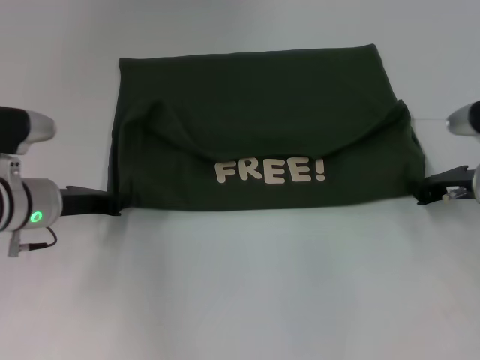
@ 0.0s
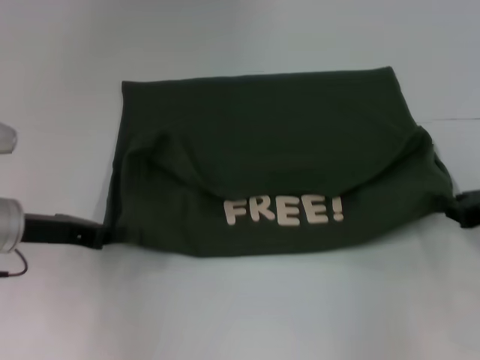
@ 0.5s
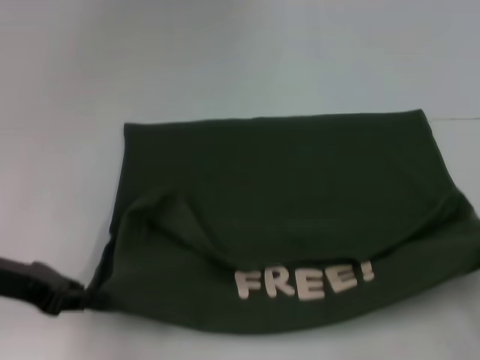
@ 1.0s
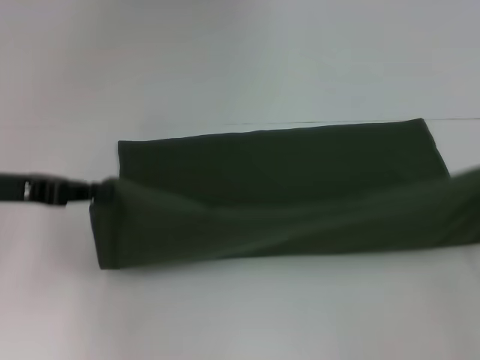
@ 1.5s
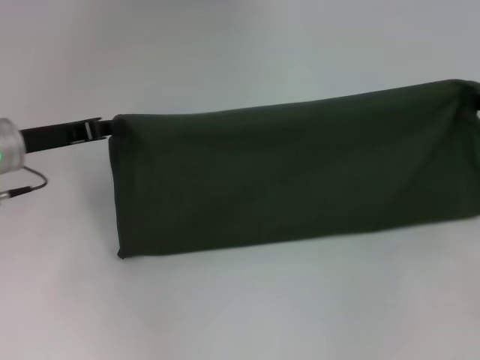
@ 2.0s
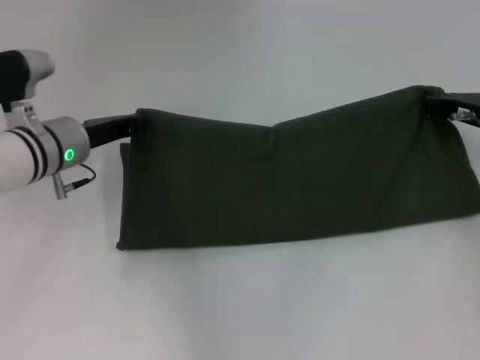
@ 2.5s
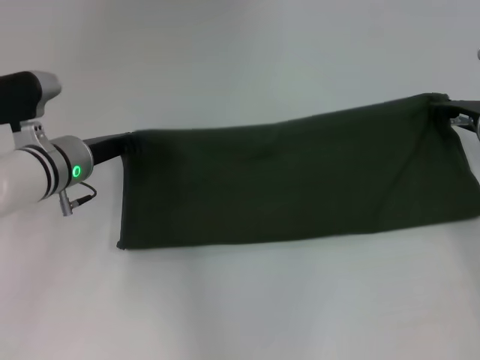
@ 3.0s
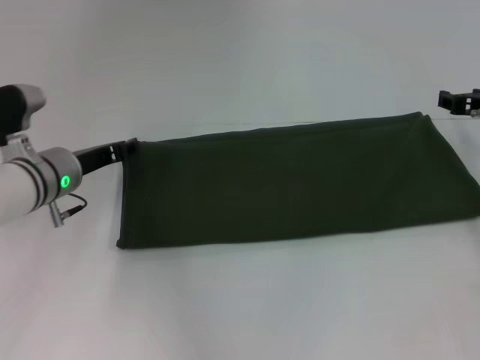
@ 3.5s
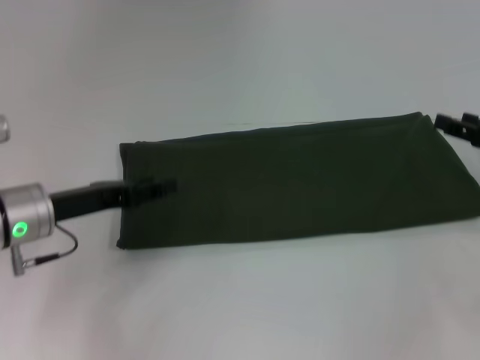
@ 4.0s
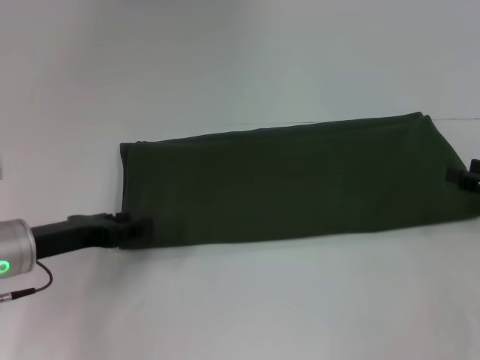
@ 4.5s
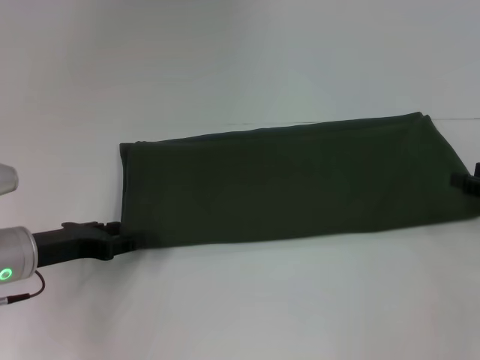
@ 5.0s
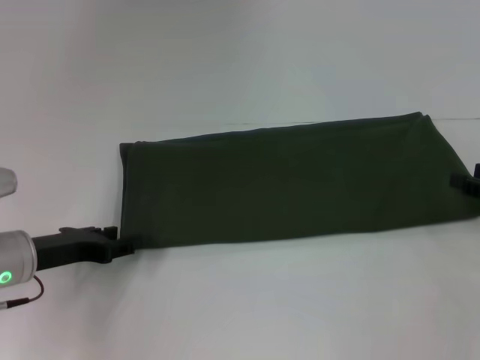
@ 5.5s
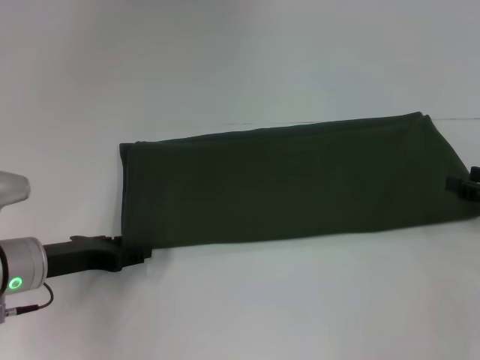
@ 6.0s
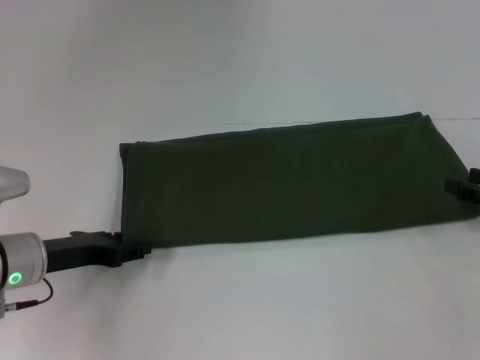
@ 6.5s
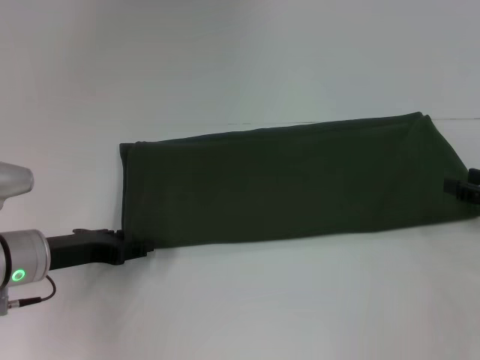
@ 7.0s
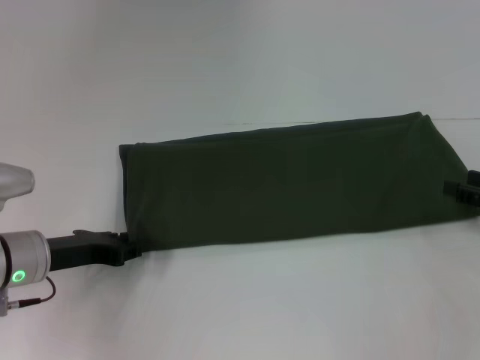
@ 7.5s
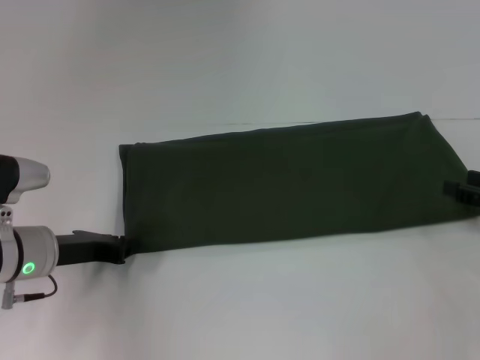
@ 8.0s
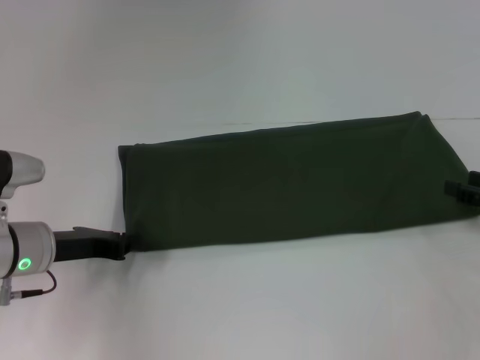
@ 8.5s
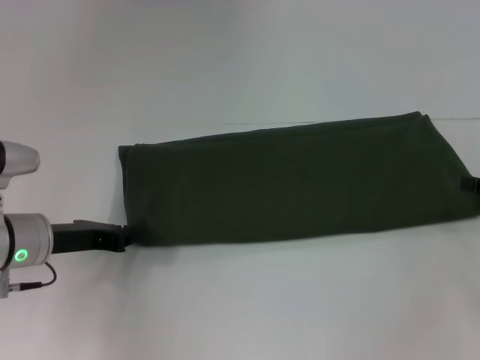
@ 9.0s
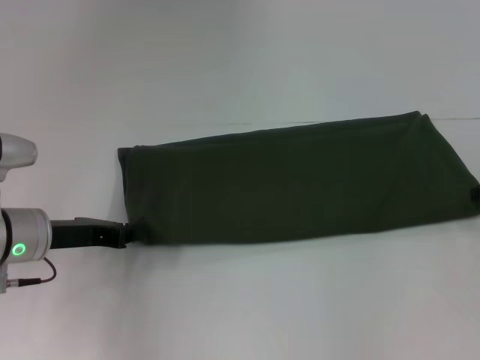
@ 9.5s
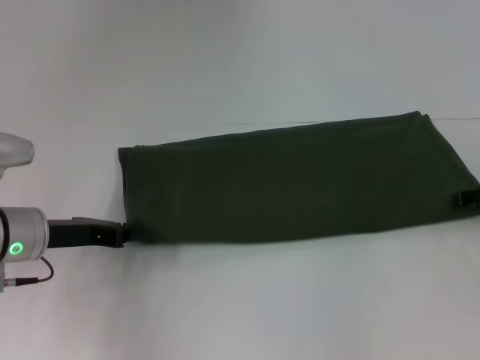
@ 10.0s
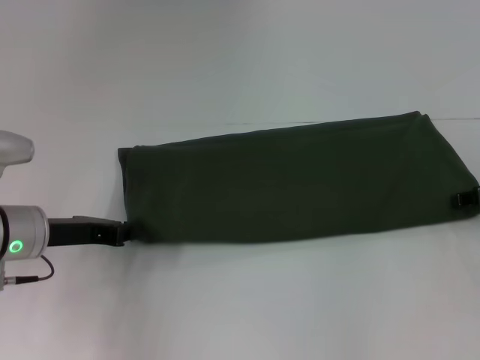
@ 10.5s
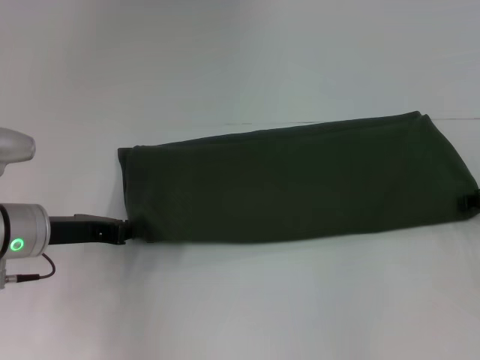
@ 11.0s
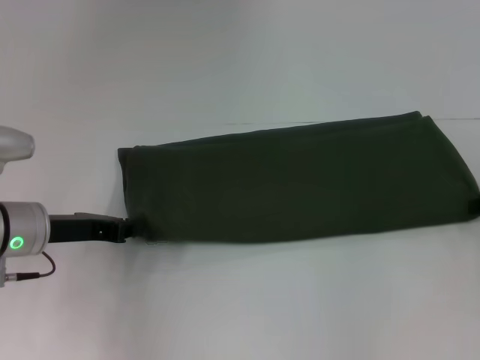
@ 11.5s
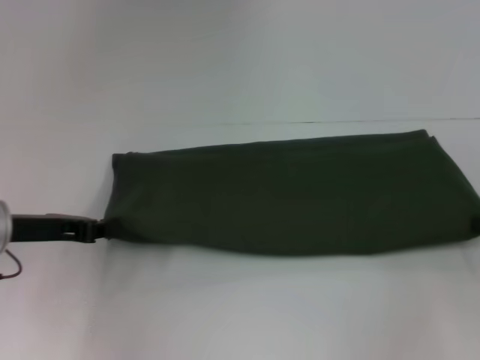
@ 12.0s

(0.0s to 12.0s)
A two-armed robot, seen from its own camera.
Step, 1.5s - 3.5s: Fold the clothes with your right hand.
0.0s - 2.0s: The left gripper goes roughly 5 cm upward. Meanwhile the right gripper moves to the right and upward, some 10 cm, and travels backward and back again, about 15 cm each way.
2.0s - 4.0s: The left gripper ends up some 5 cm from where it was, and opens its fingers. The right gripper opens.
4.0s - 6.0s: The right gripper ends up about 5 cm from where it was.
6.0s - 8.0s: The grippers stay close to where they were, moving slightly.
8.0s - 10.0s: The right gripper moves forward, approximately 5 cm.
10.0s - 12.0s: The right gripper moves backward, about 5 cm, and closes.

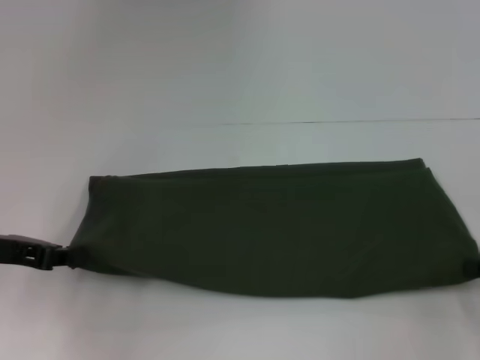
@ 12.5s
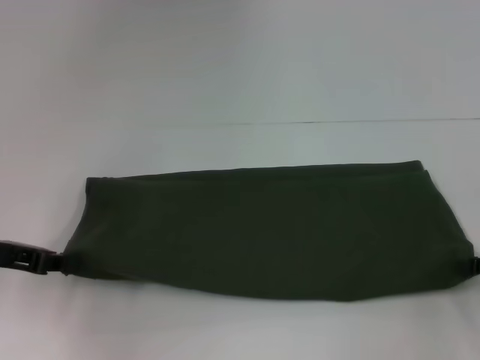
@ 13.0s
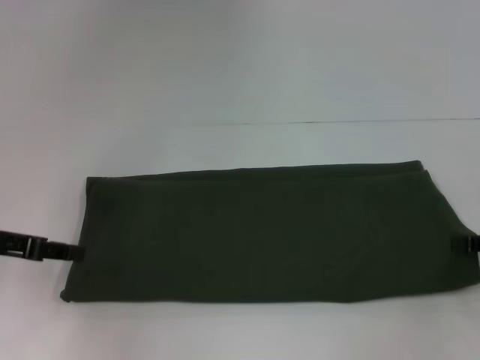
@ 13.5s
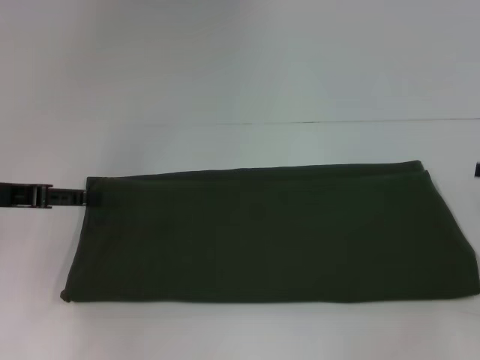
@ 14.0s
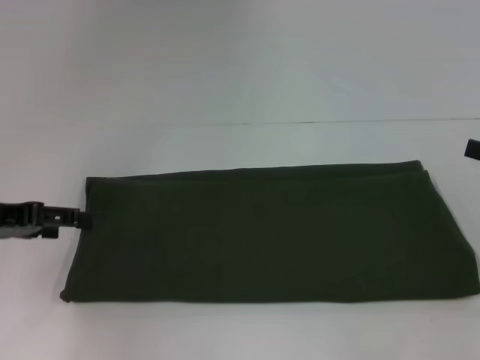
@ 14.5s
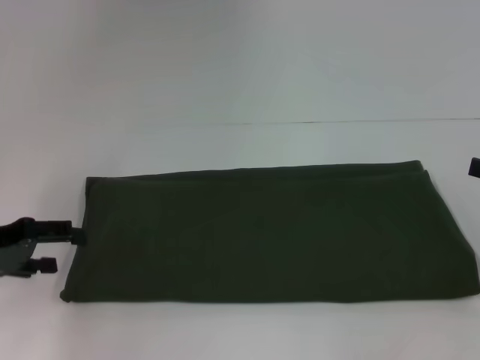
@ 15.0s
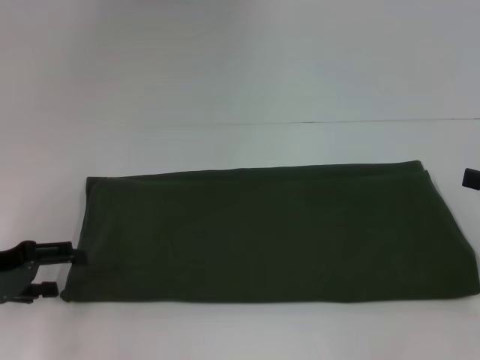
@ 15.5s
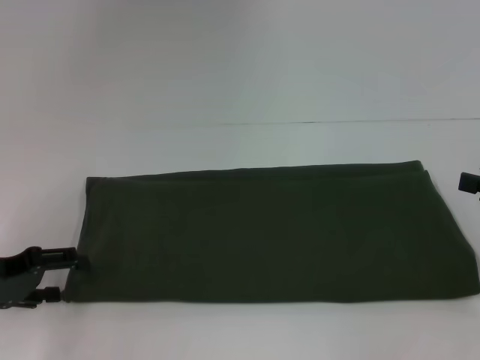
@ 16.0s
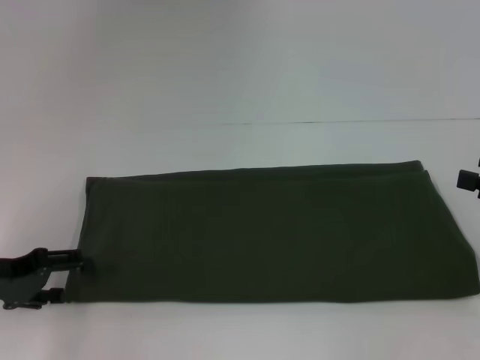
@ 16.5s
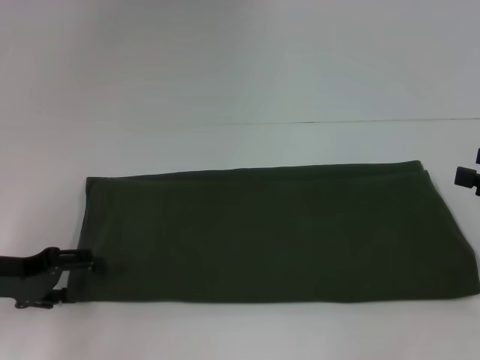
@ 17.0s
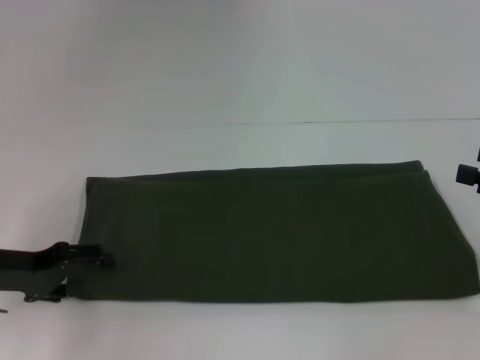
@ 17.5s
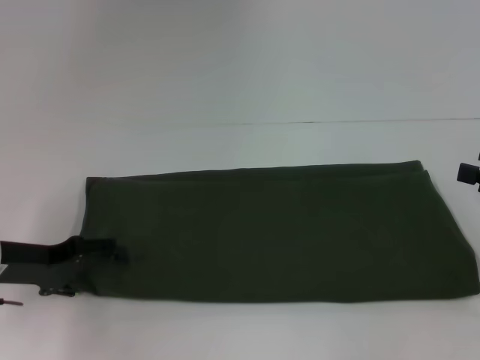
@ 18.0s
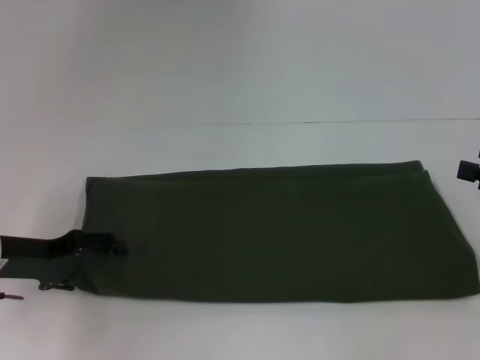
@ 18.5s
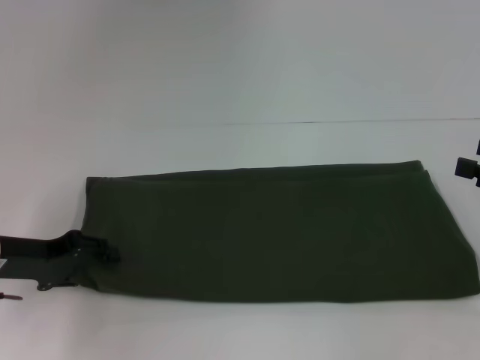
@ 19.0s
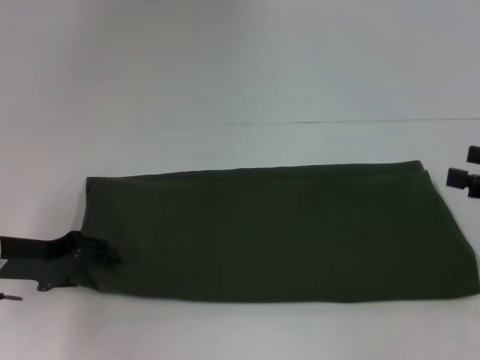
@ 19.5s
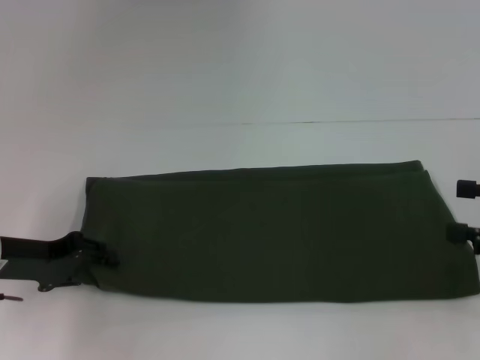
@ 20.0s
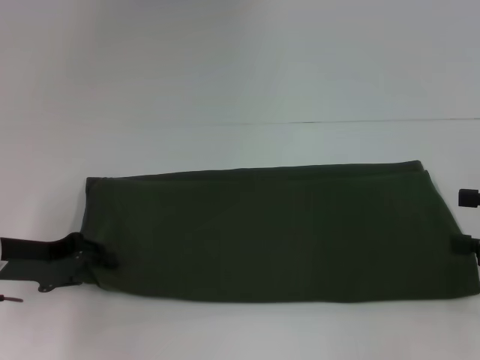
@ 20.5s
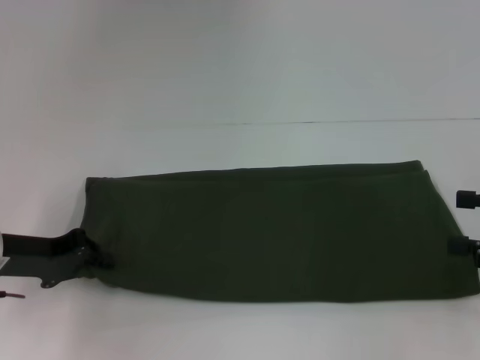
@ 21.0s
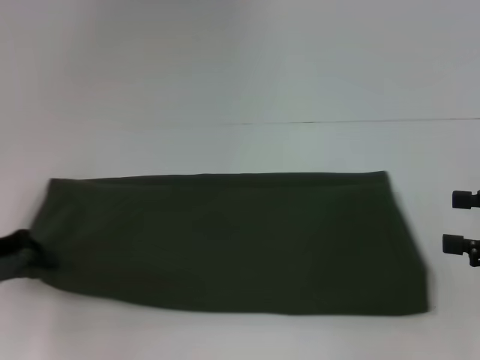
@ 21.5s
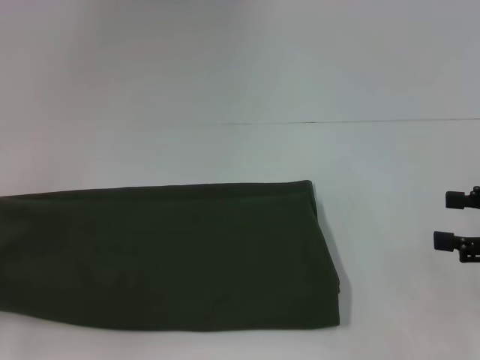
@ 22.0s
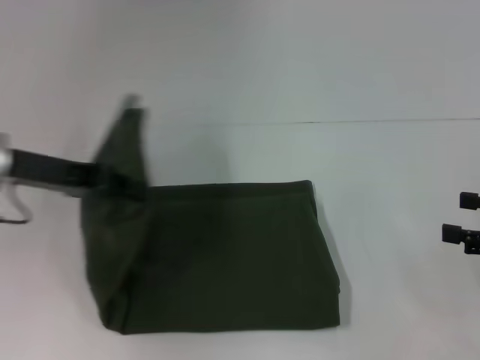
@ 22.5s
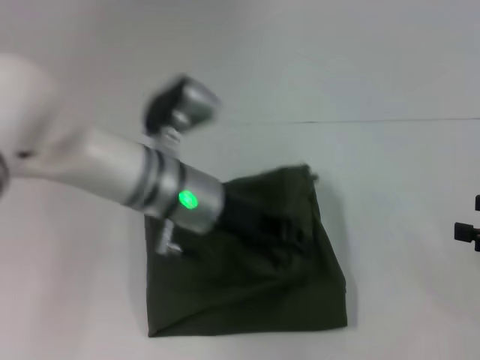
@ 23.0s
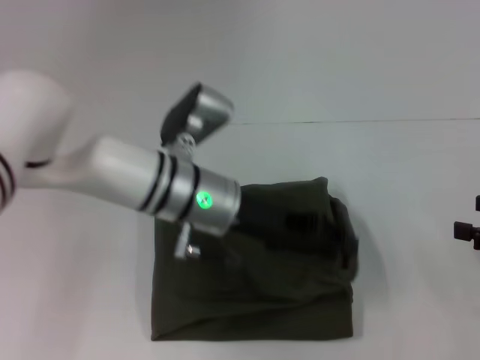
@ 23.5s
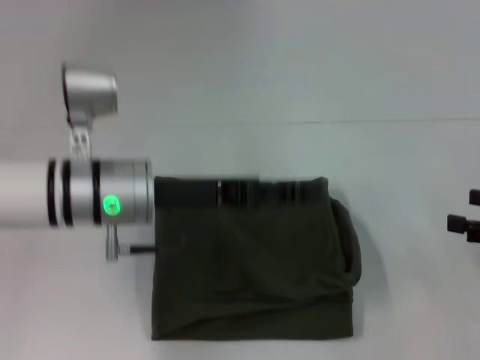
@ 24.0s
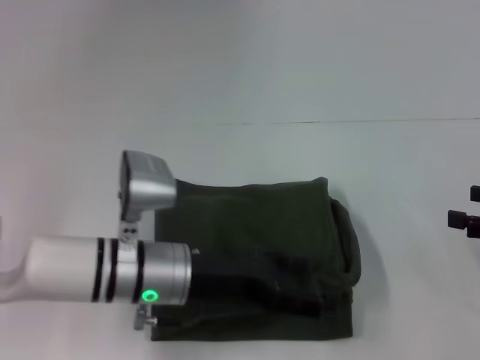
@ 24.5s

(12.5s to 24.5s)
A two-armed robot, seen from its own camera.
Step, 12.5s - 23.5s: Fold the clothes with your left hand.
12.5s - 14.5s: The left gripper opens its fingers, while the right gripper shifts by roughly 5 cm, and opens up.
14.5s - 16.5s: The left gripper heads downward, covering roughly 5 cm.
16.5s - 18.5s: The grippers stay close to where they were, moving slightly.
18.5s - 20.5s: The left gripper closes.
20.5s - 22.5s: The left gripper goes roughly 10 cm upward, and goes to the left and returns, about 10 cm each way.
22.5s - 24.5s: The left gripper is displaced to the right and downward by roughly 20 cm, and opens up.

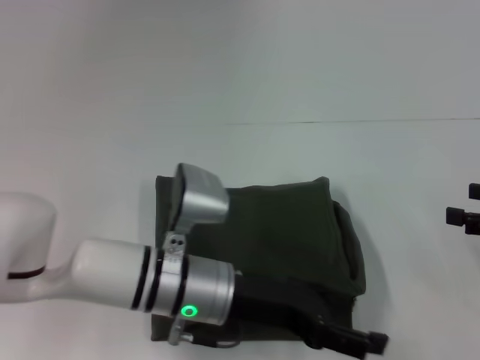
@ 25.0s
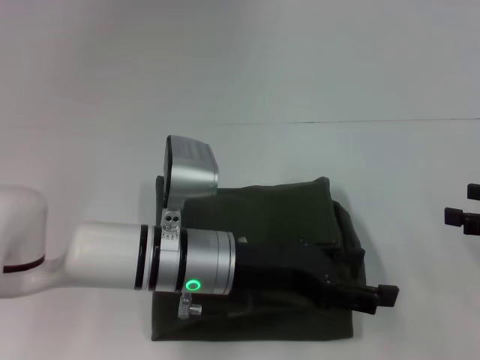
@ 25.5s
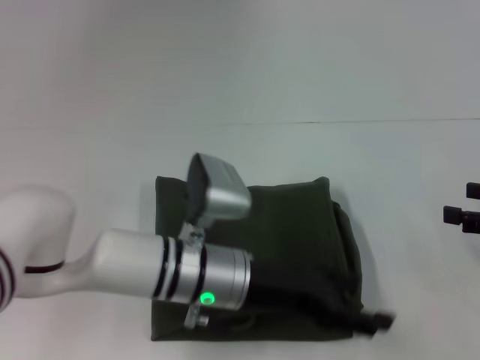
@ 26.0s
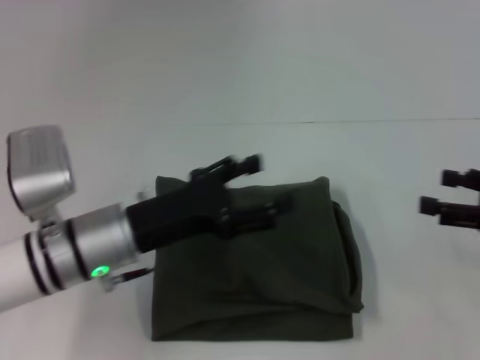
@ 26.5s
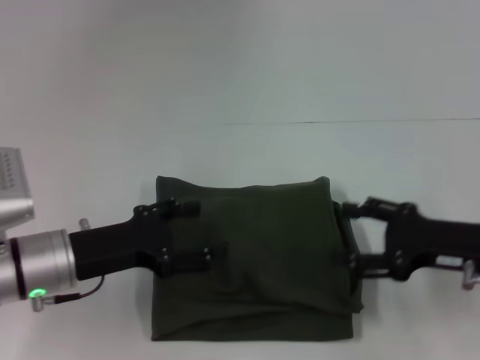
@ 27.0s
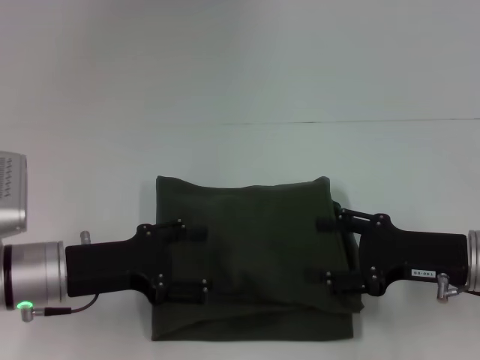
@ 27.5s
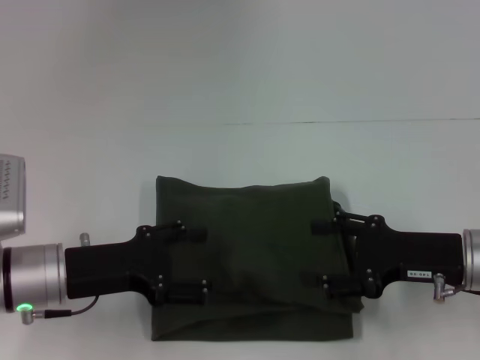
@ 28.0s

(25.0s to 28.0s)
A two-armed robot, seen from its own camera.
25.0s - 26.5s: The left gripper shifts roughly 10 cm to the left.
26.5s - 28.0s: The right gripper goes roughly 10 cm to the left. The left gripper moves to the left, about 5 cm.
